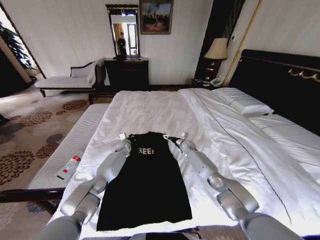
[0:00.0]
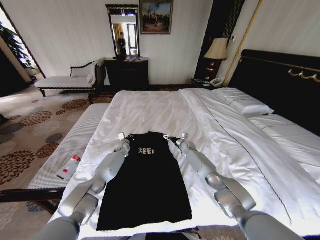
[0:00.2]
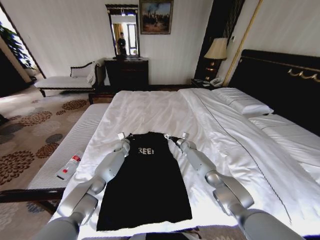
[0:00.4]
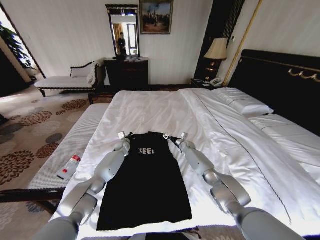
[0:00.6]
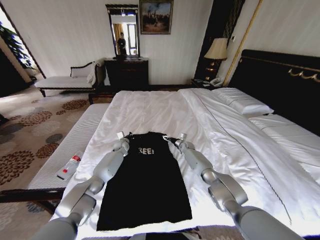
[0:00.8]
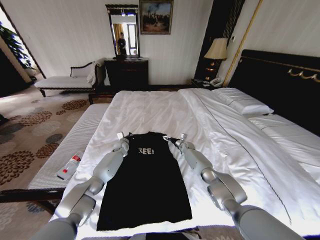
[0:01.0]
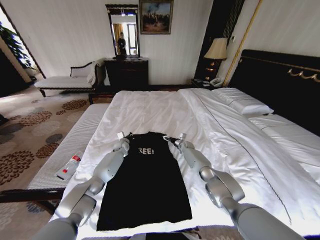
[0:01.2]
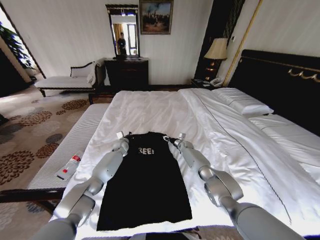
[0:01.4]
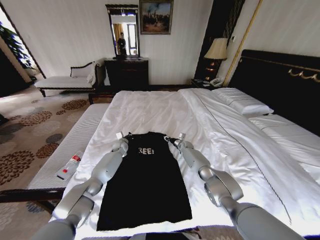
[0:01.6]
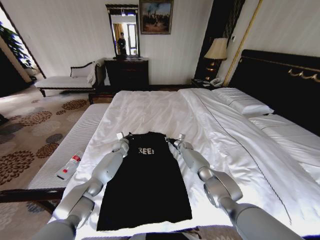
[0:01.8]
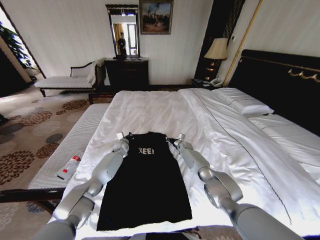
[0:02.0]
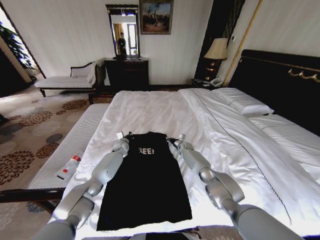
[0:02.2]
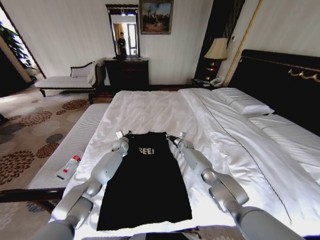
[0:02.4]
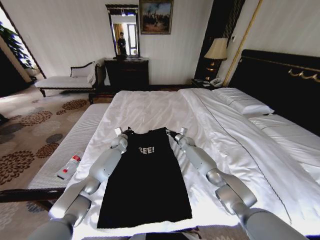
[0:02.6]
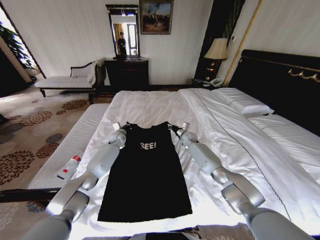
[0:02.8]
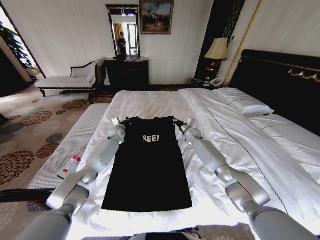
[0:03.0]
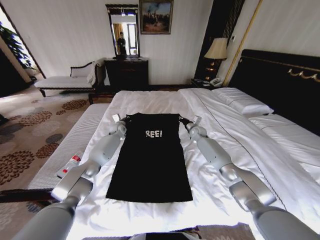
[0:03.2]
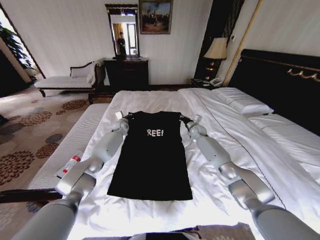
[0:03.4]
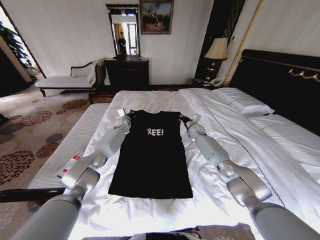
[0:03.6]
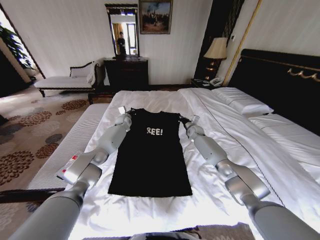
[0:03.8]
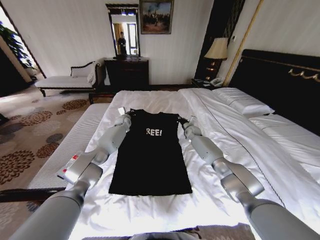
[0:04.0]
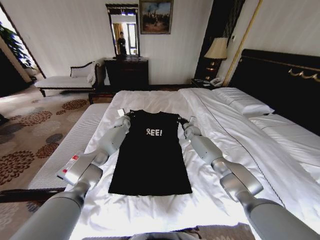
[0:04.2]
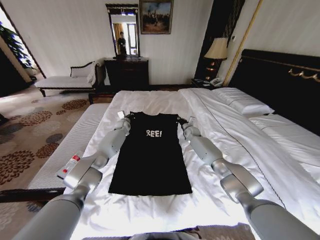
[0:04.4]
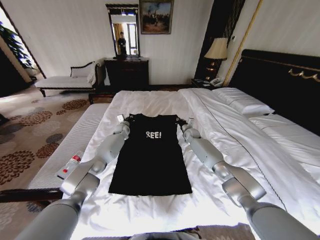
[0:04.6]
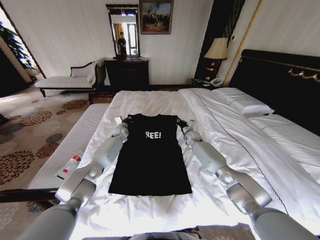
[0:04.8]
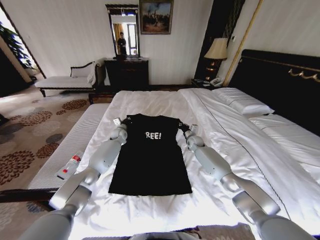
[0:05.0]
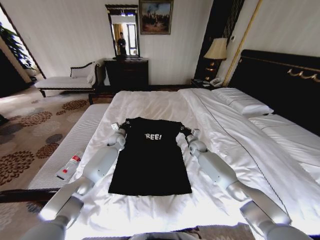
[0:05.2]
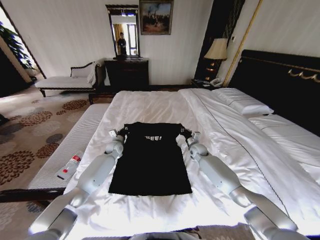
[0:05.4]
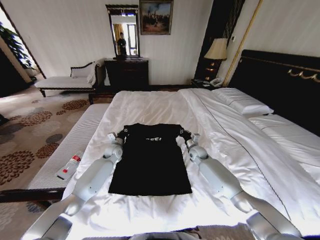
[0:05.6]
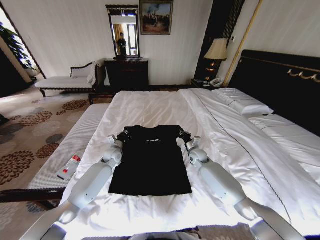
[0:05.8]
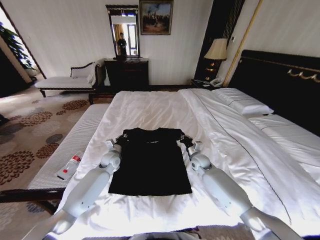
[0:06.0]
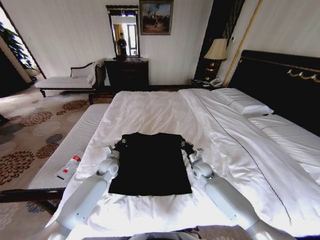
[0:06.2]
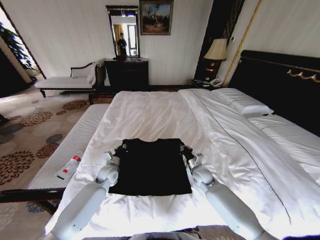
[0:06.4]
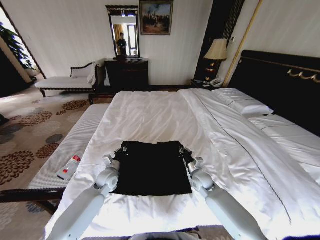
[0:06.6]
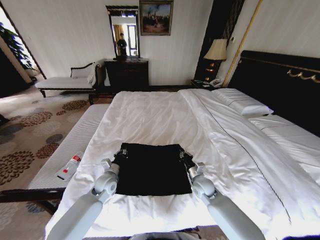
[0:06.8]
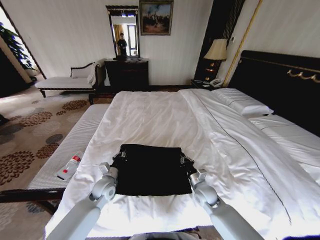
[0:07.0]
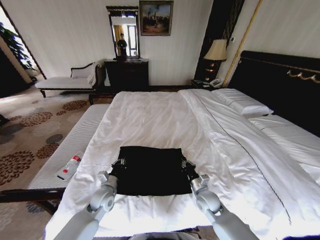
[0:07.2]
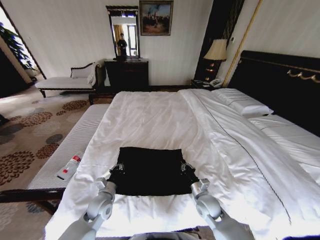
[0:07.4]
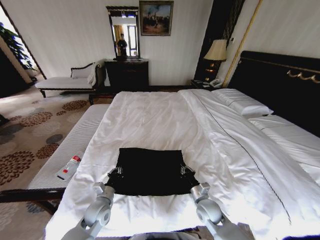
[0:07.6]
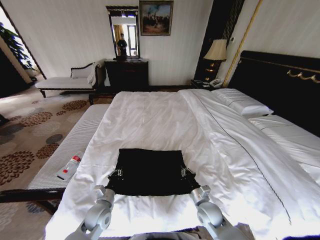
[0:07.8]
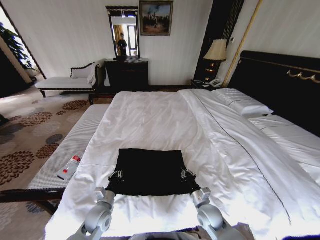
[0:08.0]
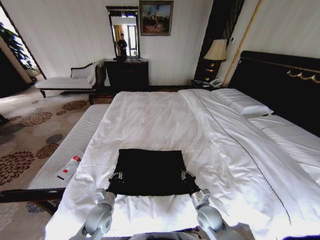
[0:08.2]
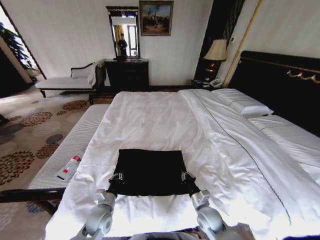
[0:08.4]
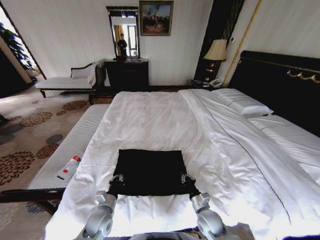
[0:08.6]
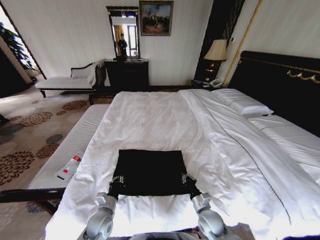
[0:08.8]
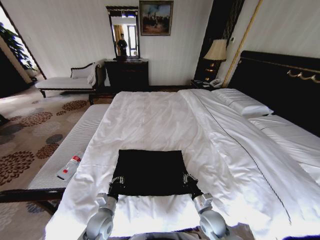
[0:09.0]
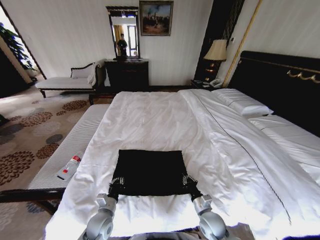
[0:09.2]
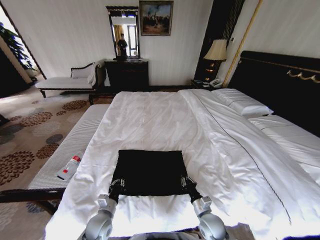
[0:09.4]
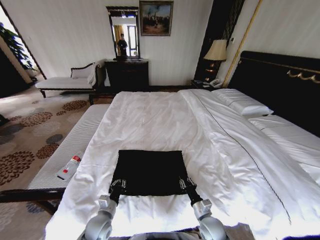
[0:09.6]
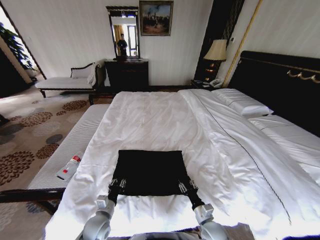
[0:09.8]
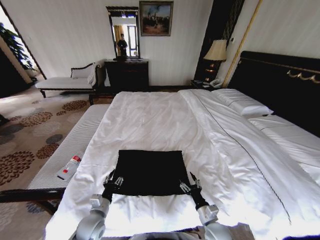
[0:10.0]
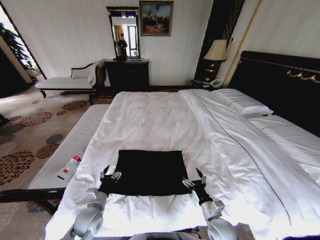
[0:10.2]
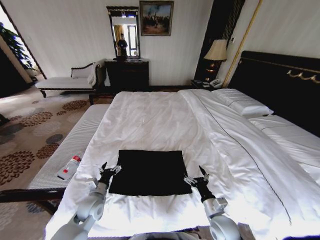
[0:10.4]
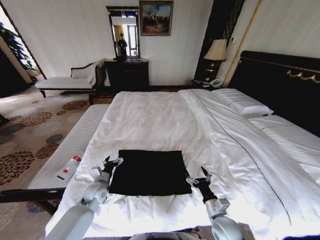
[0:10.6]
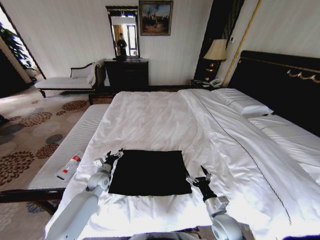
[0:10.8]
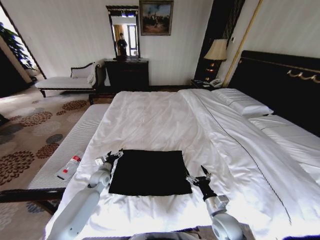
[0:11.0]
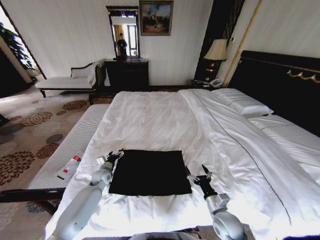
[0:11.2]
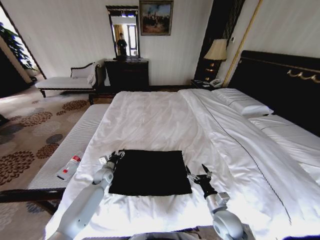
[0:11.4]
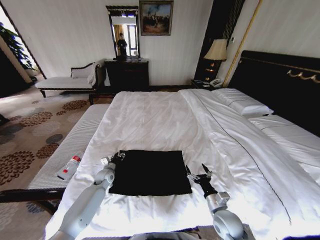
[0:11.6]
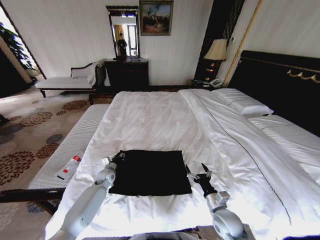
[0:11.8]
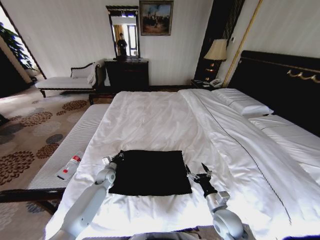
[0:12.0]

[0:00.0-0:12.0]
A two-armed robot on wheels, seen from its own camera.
Task of the whole recording: Fold the clothes on the bed.
0:00.0 to 0:01.6: The right gripper closes.
0:01.6 to 0:03.0: Both grippers move upward, some 10 cm. The right gripper closes its fingers.
0:03.0 to 0:04.4: The left gripper heads forward, covering roughly 5 cm.
0:04.4 to 0:06.0: The grippers both shift backward by about 20 cm.
0:06.0 to 0:07.6: Both grippers travel together backward, roughly 20 cm.
0:07.6 to 0:09.0: The grippers move only a little.
0:09.0 to 0:10.4: The right gripper opens; the left gripper moves about 5 cm, and opens its fingers.
0:10.4 to 0:12.0: The left gripper shifts about 15 cm forward, and closes.

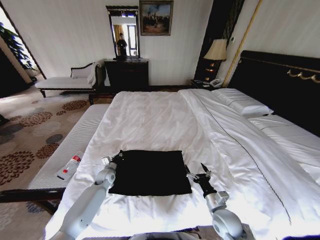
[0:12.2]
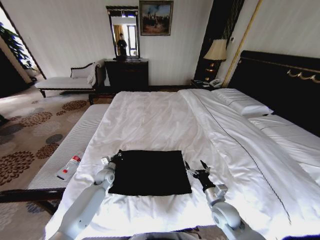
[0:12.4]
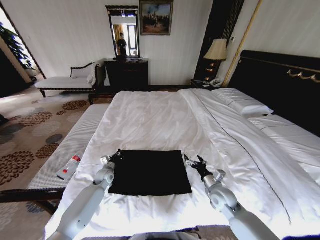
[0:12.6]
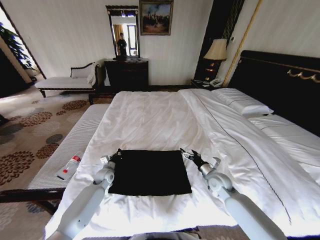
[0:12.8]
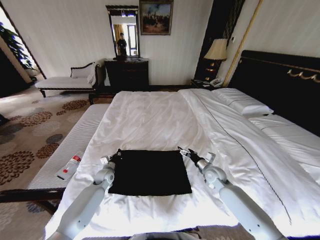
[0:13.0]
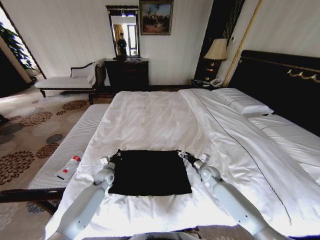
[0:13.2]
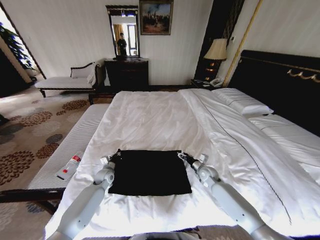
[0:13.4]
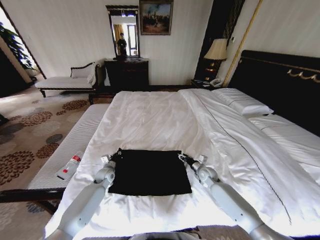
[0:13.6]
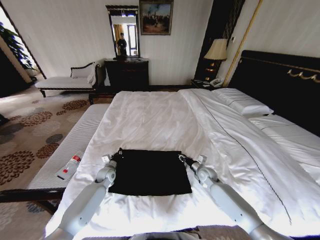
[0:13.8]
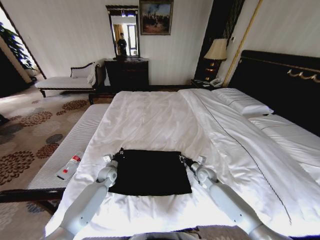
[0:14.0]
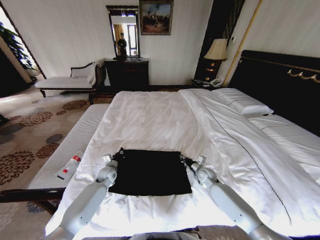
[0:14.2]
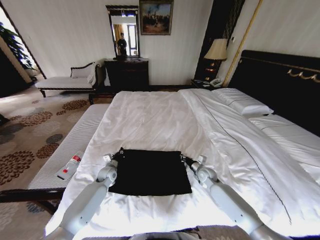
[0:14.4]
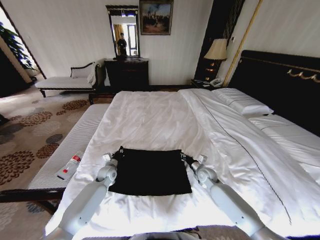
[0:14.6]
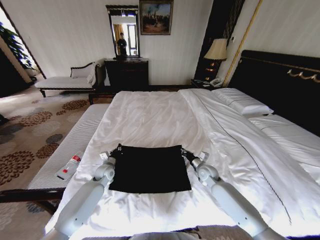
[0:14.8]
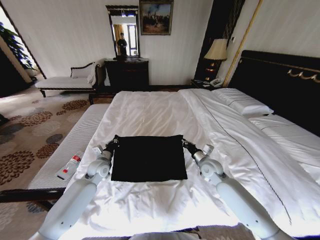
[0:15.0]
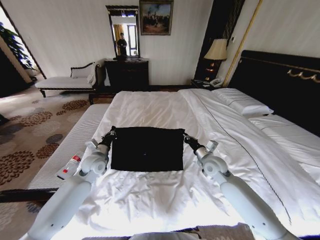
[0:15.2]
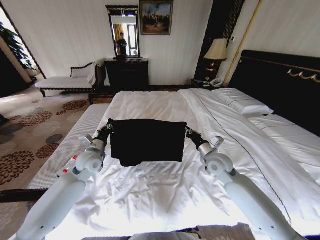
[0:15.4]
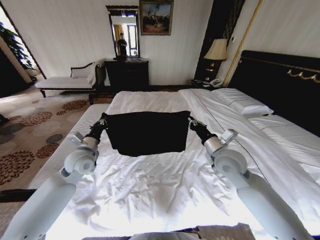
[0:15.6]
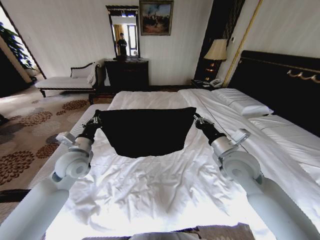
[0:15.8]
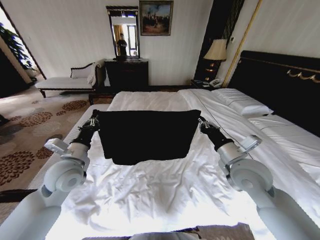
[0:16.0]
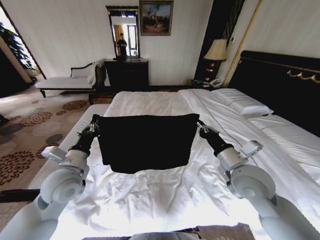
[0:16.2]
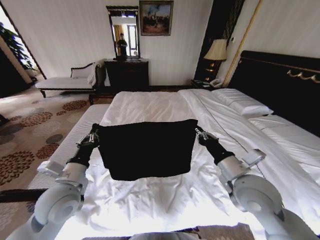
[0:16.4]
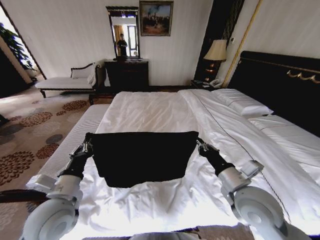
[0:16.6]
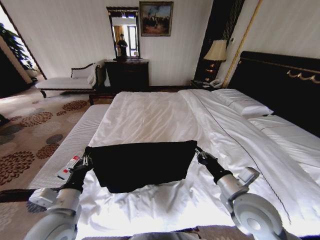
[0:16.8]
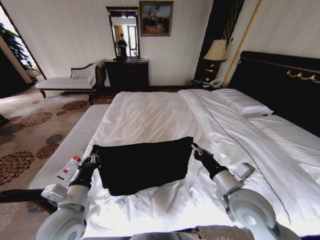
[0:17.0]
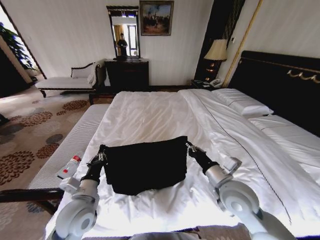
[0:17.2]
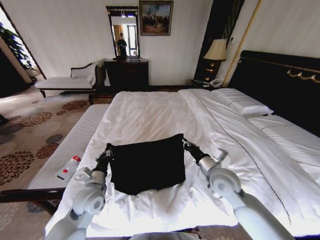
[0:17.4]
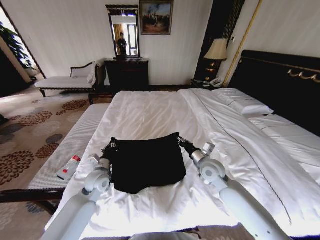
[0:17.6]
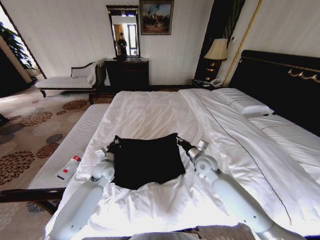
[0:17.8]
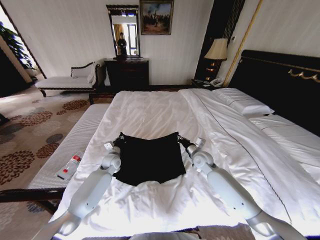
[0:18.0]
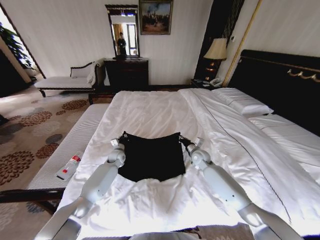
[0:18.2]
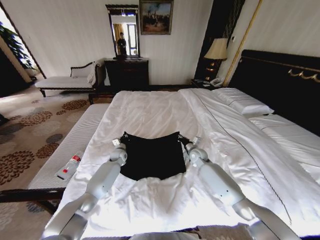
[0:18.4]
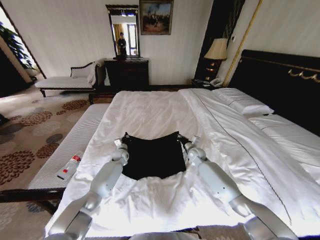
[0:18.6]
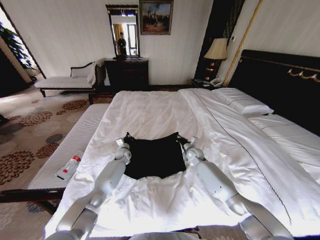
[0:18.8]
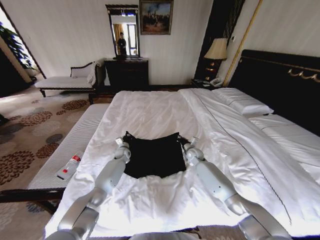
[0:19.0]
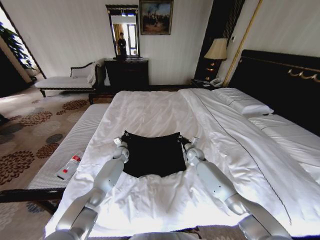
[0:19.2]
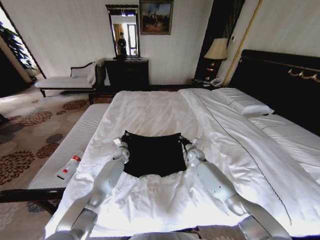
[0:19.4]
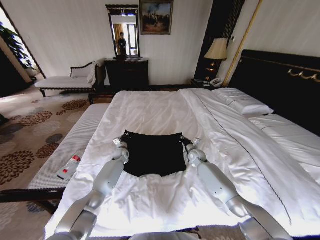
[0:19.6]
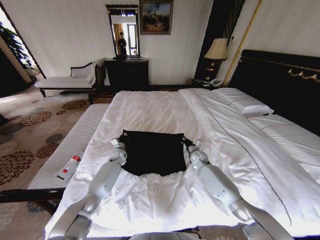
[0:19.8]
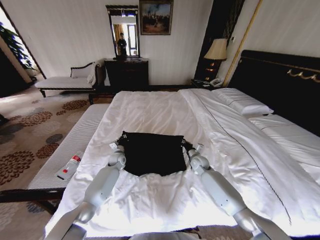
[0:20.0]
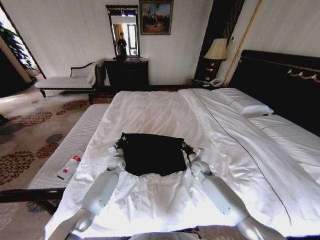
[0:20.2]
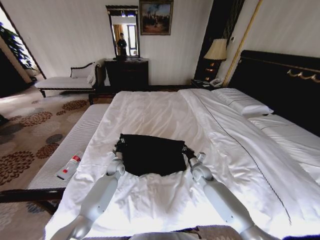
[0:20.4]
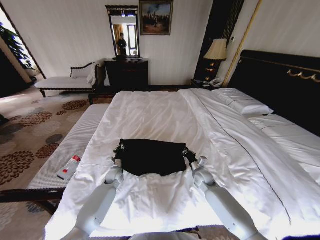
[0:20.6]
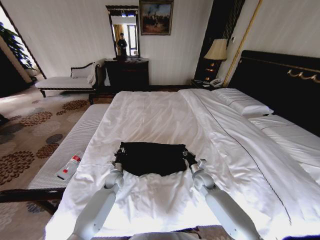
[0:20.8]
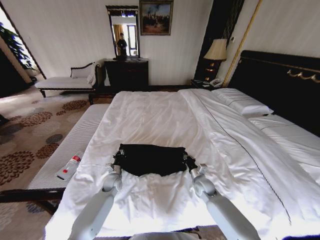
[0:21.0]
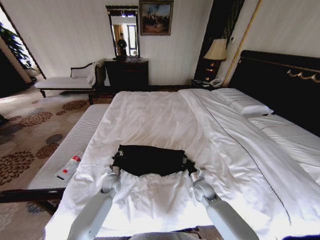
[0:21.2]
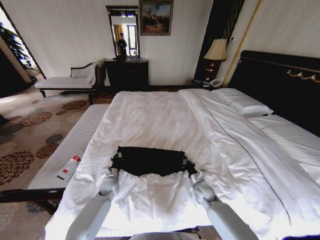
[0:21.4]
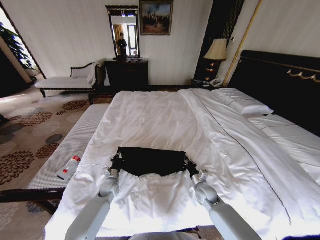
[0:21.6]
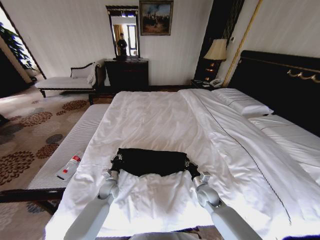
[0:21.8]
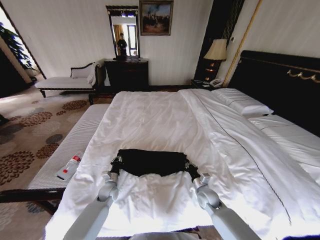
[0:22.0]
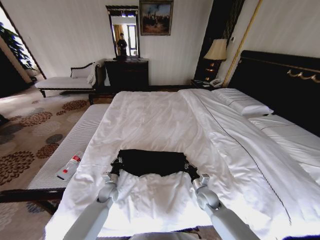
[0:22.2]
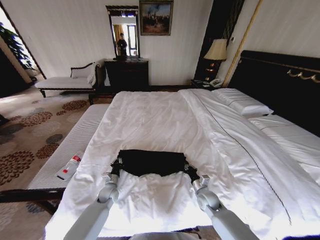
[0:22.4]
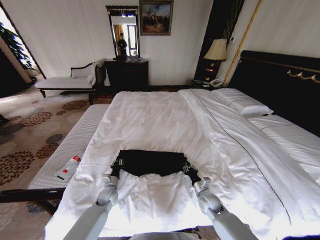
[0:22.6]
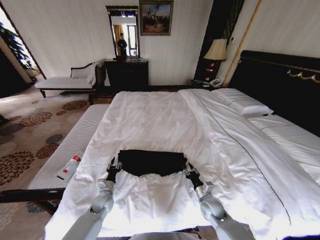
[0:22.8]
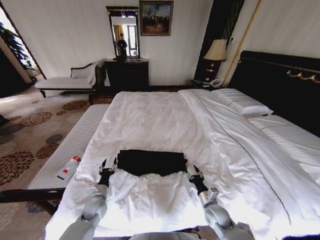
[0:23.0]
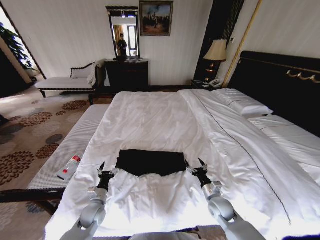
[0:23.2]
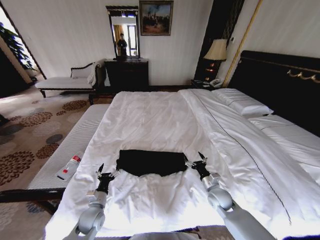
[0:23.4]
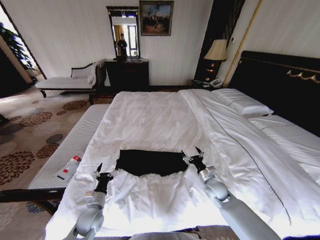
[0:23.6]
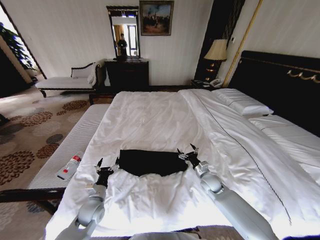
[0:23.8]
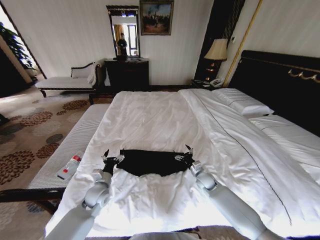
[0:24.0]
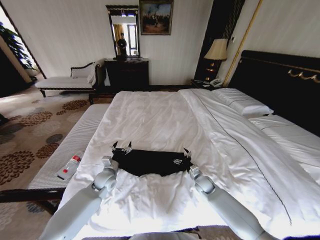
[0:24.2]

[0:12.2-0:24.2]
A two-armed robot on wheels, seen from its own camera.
Task of the whole recording: Fold the clothes on the bed.
0:12.2 to 0:13.8: The right gripper is displaced forward by about 20 cm, and closes up.
0:13.8 to 0:15.2: Both grippers travel together upward, about 15 cm. The right gripper closes up.
0:15.2 to 0:16.6: The two grippers go approximately 20 cm backward and upward.
0:16.6 to 0:18.2: The grippers both shift forward and downward by some 35 cm.
0:18.2 to 0:19.8: The right gripper shifts by approximately 5 cm.
0:19.8 to 0:21.2: The right gripper shifts approximately 15 cm backward; the left gripper goes some 15 cm backward and downward.
0:21.2 to 0:22.6: The left gripper shifts approximately 5 cm backward, while the right gripper ends up approximately 5 cm from where it was.
0:22.6 to 0:24.2: The right gripper goes roughly 10 cm forward, and opens, while the left gripper shifts about 10 cm upward, reaches about 10 cm backward, then returns, and opens.
